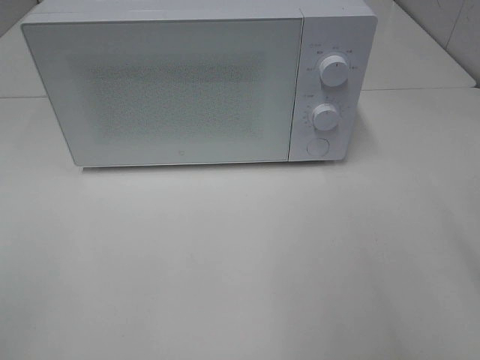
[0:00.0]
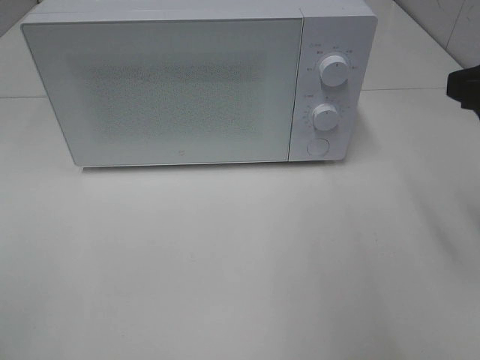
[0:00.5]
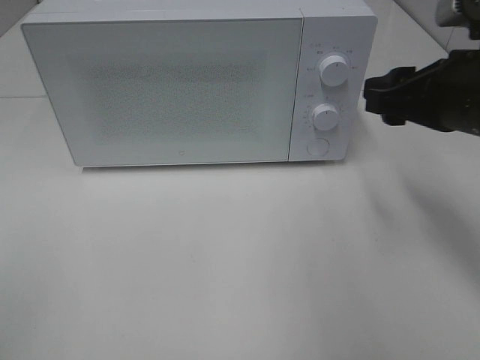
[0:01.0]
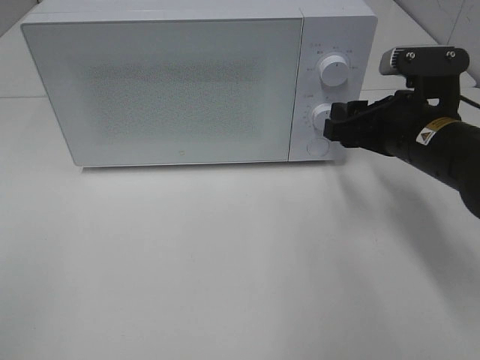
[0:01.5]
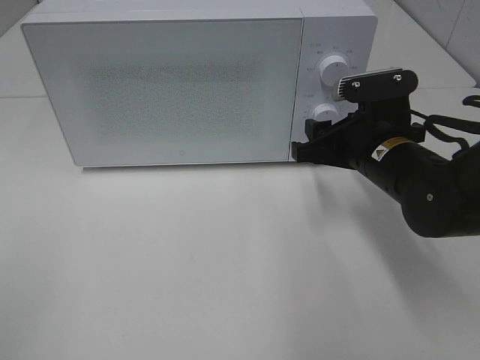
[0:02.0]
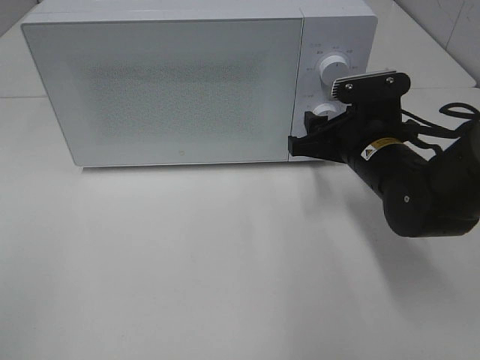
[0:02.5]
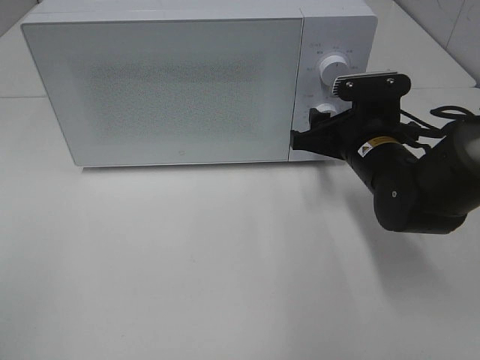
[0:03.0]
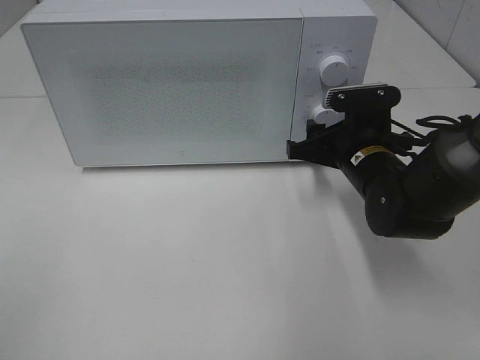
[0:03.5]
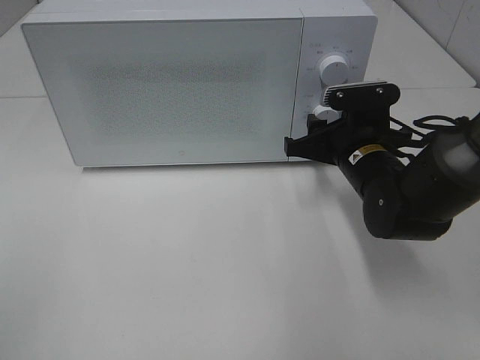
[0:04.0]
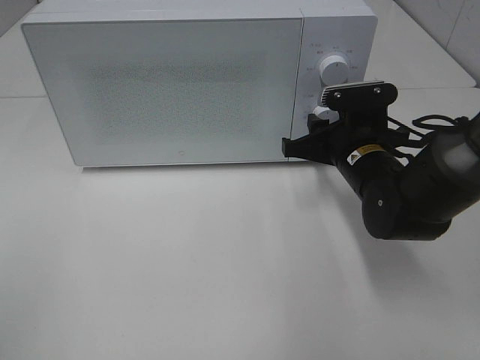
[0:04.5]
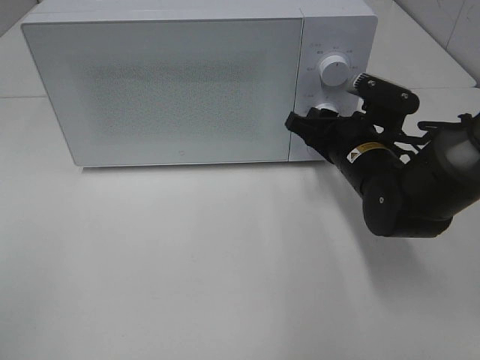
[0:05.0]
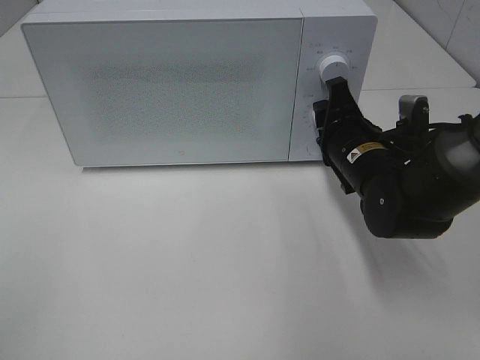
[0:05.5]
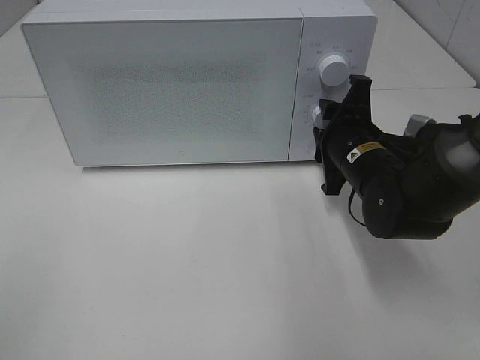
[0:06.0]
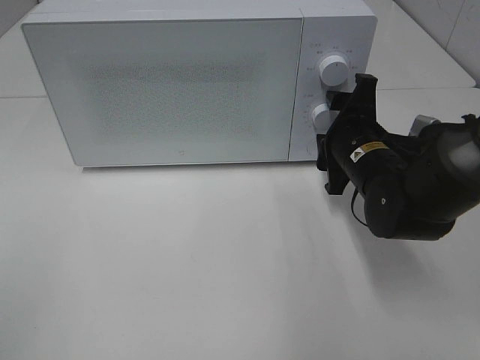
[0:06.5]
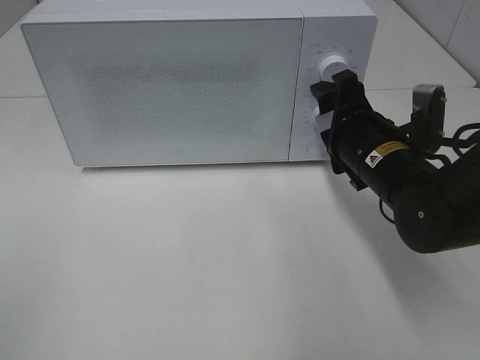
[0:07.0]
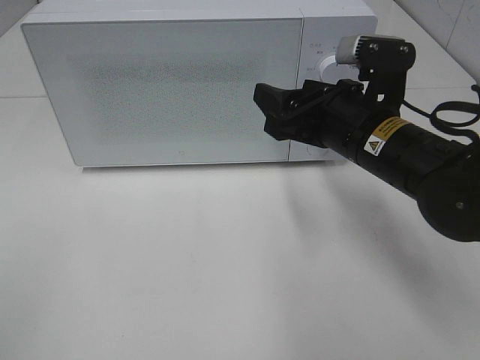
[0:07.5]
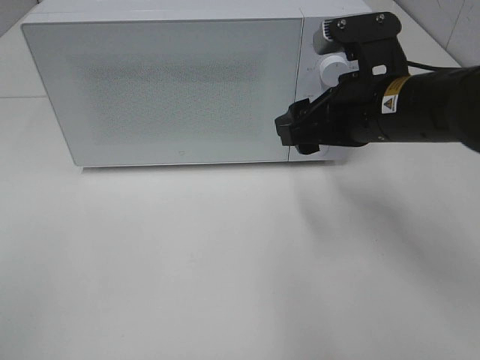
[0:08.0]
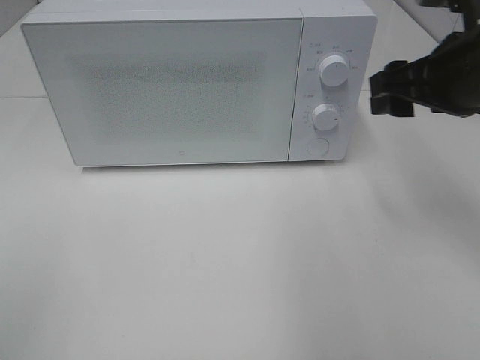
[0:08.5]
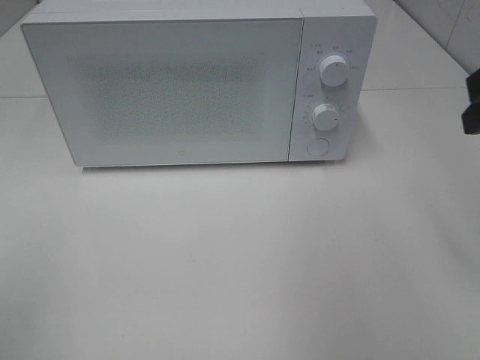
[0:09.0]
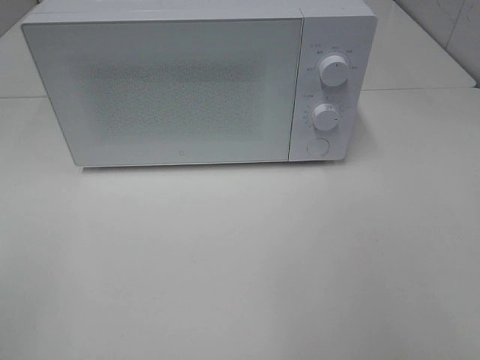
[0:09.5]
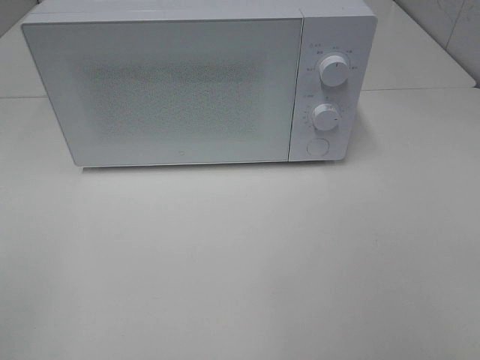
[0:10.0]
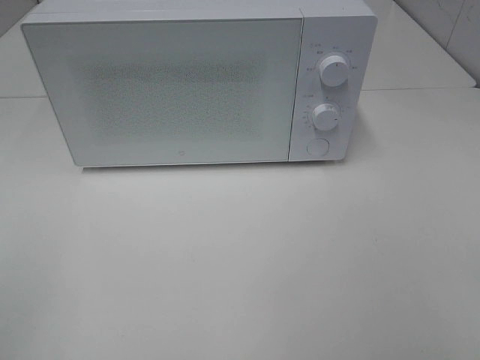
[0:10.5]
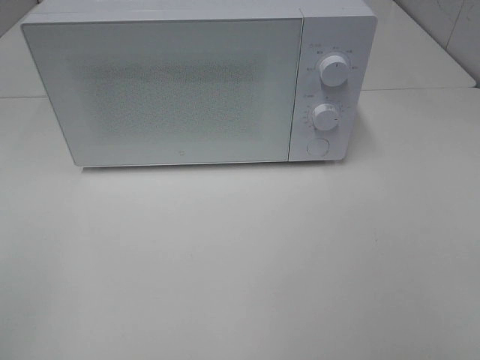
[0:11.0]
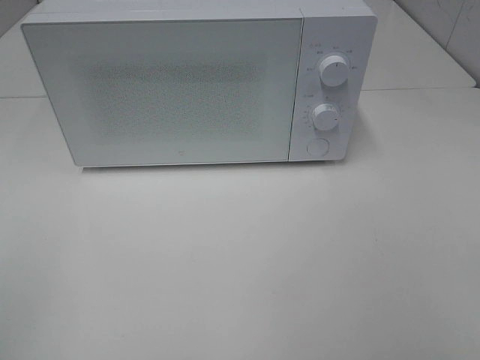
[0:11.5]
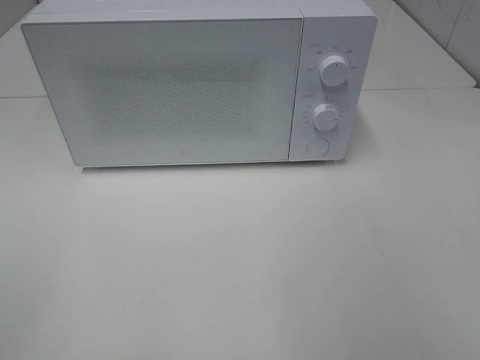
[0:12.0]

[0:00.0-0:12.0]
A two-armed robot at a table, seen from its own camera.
Task of the whole recording: Heat the burger.
0:00.0 to 0:12.0: Both grippers stay about where they are.

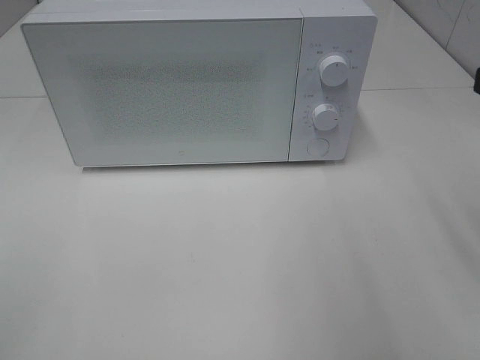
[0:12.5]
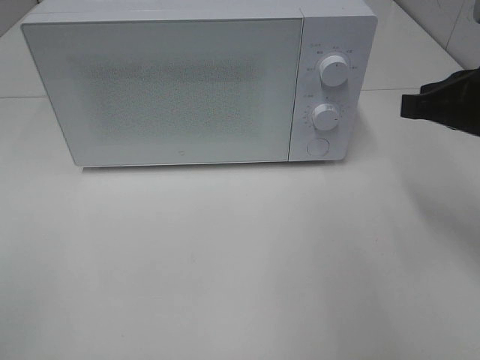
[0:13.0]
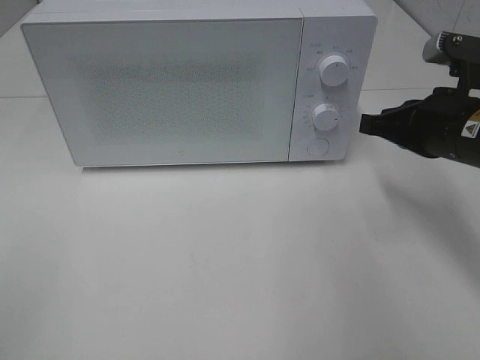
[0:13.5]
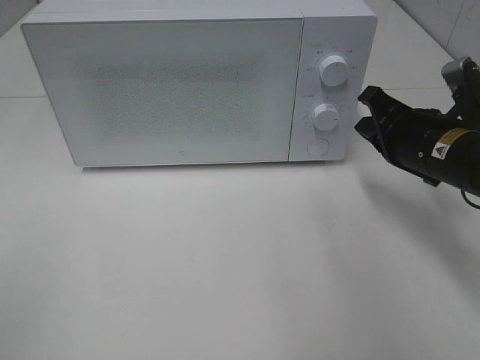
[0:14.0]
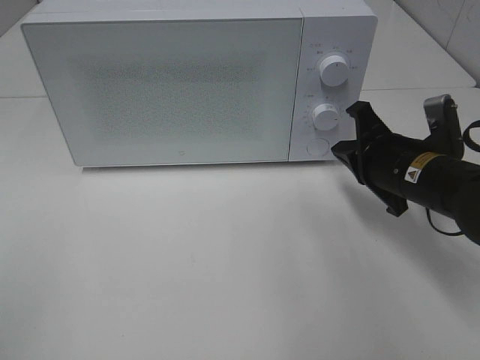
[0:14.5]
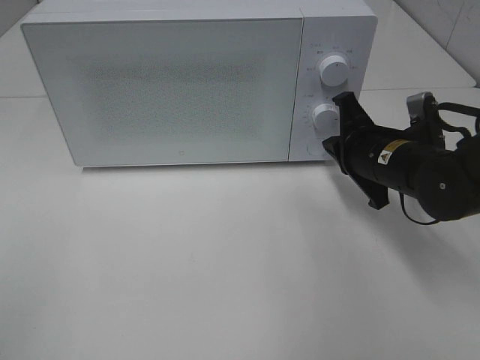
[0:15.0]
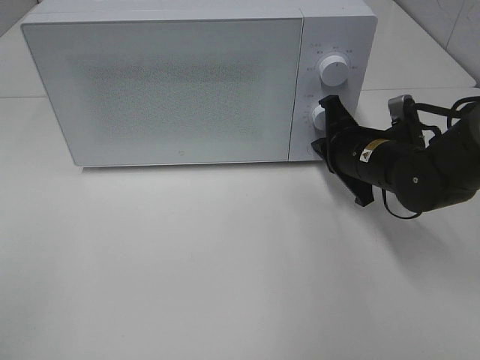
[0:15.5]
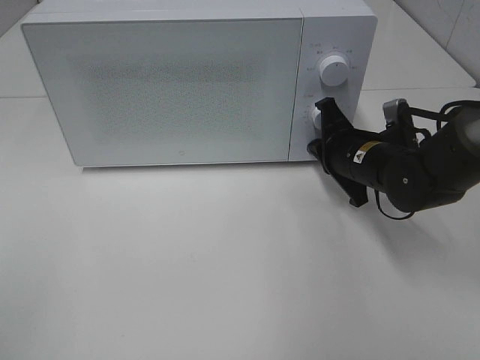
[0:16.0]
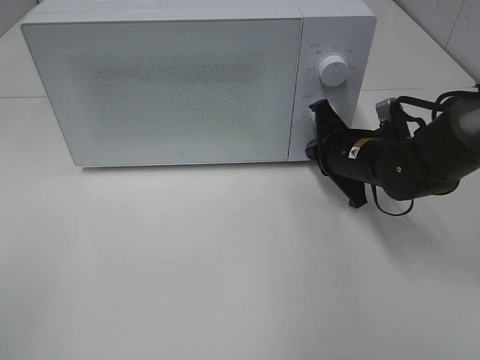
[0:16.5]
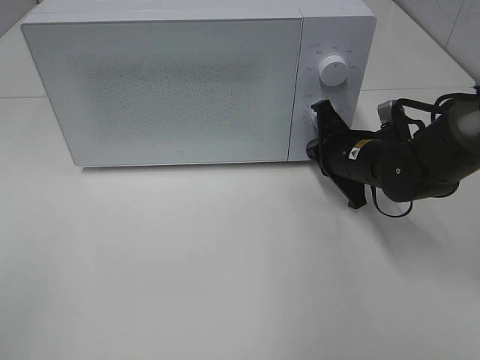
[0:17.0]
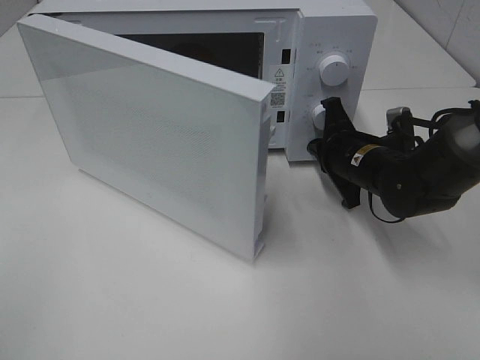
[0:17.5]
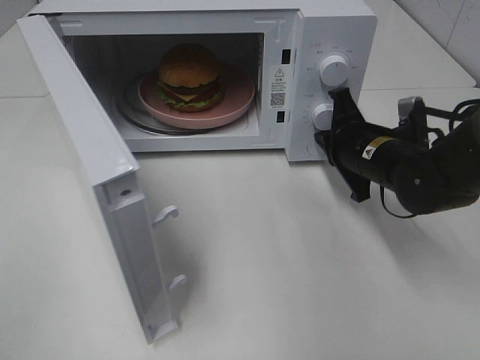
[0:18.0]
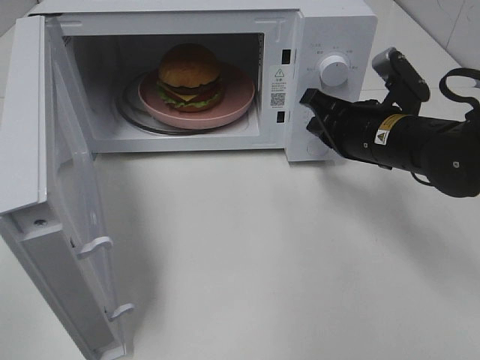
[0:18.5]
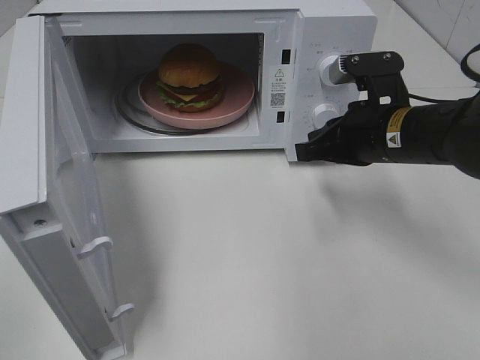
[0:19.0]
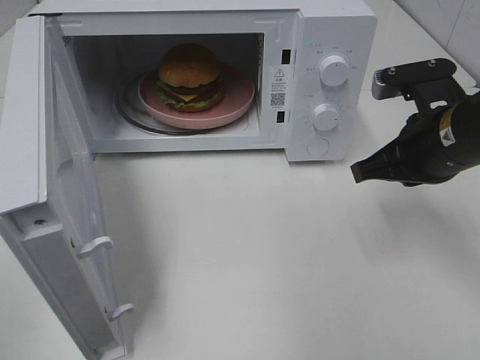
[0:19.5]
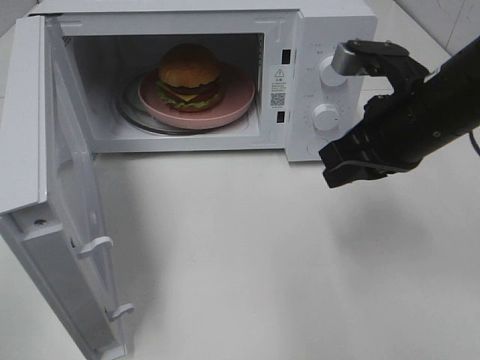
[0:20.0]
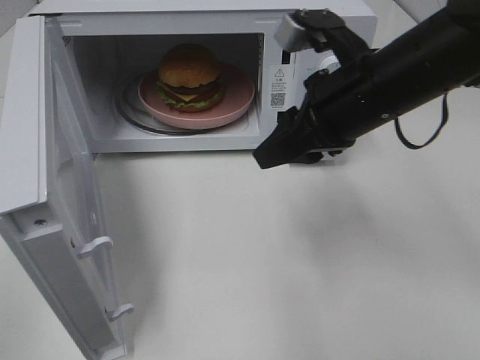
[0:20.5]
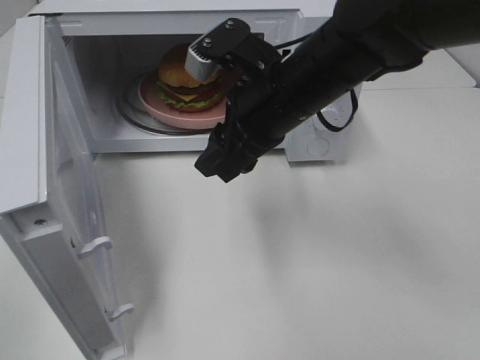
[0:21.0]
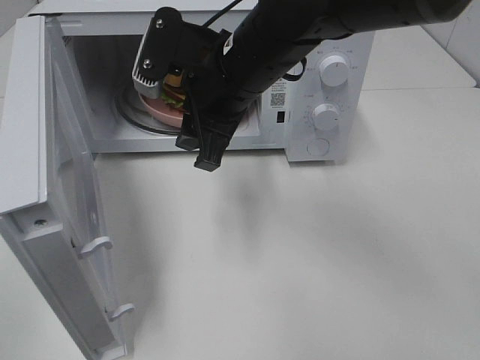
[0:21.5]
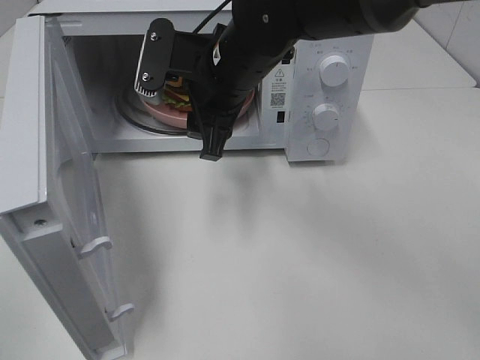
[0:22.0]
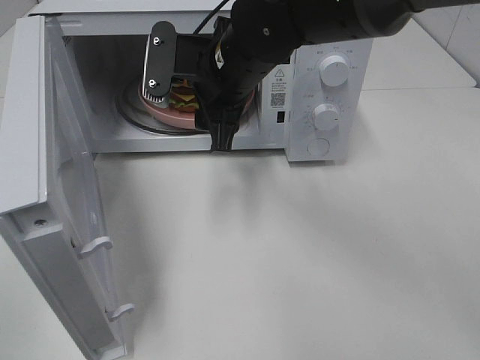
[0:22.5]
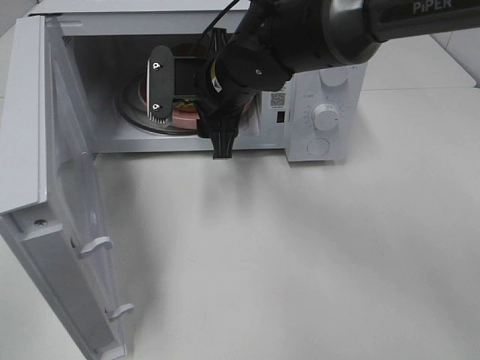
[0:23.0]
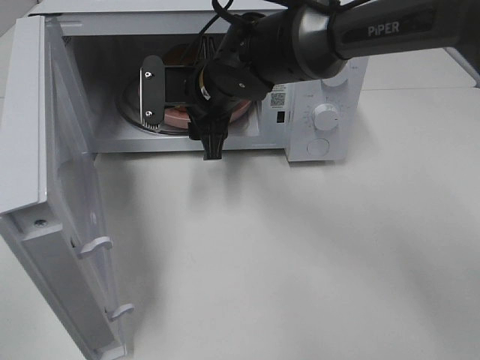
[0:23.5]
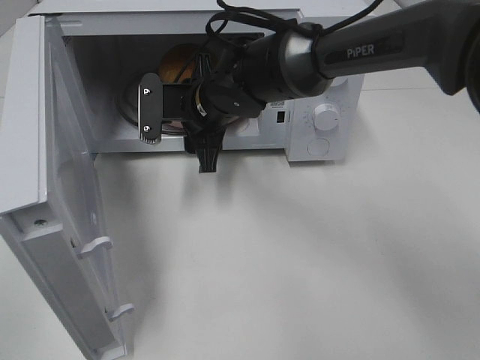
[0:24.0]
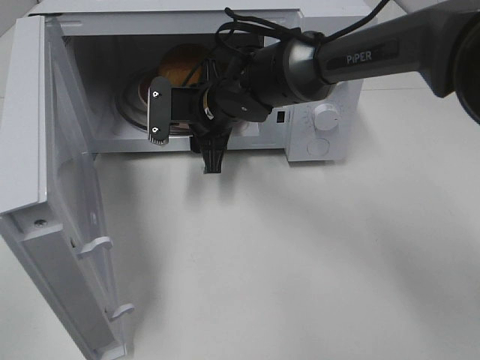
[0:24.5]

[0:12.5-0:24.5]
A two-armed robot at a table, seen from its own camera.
Task of the whole recording: Heat the burger.
Step, 0:12.5 to 0:18.0: Right hand: press the switch.
0:12.5 to 0:16.5: The two grippers keep their place.
0:18.5 to 0:20.5: Neither gripper changes place.
0:22.5 to 0:24.5: Neither gripper changes place.

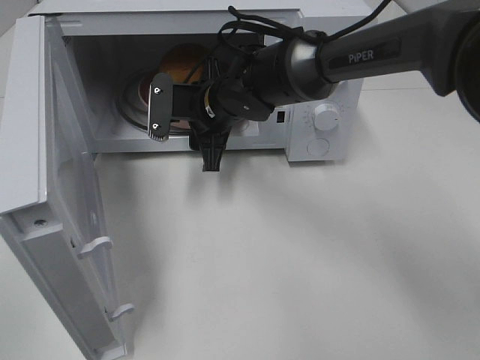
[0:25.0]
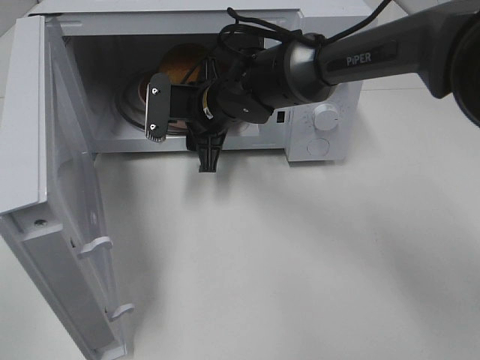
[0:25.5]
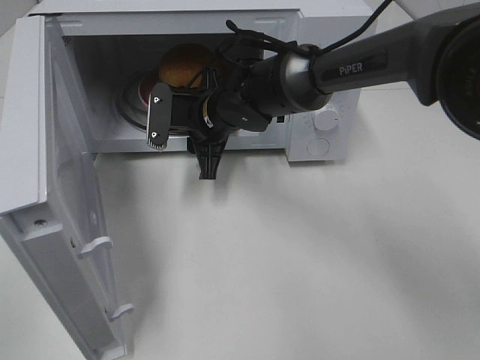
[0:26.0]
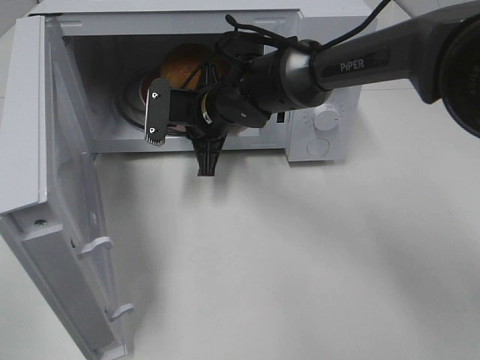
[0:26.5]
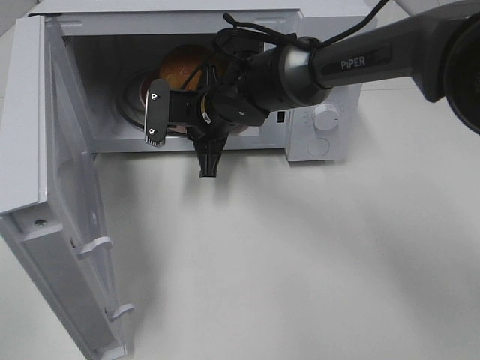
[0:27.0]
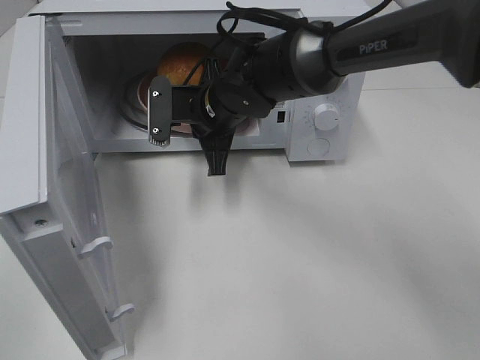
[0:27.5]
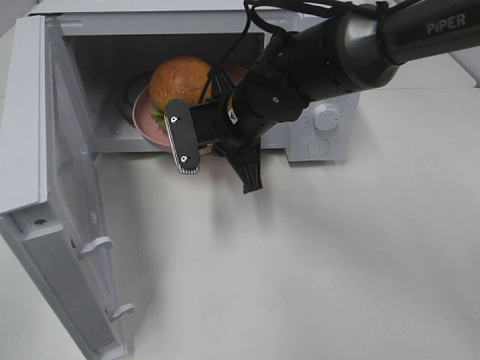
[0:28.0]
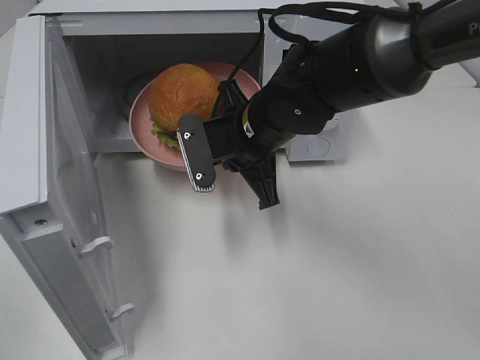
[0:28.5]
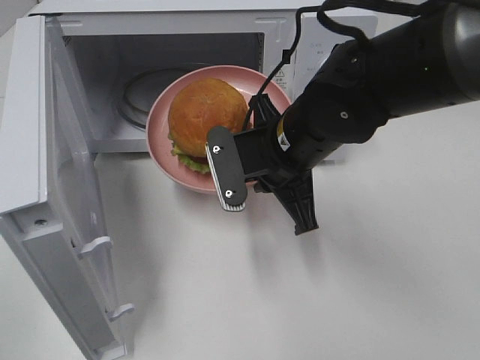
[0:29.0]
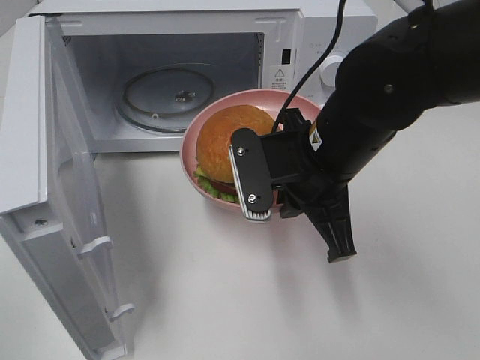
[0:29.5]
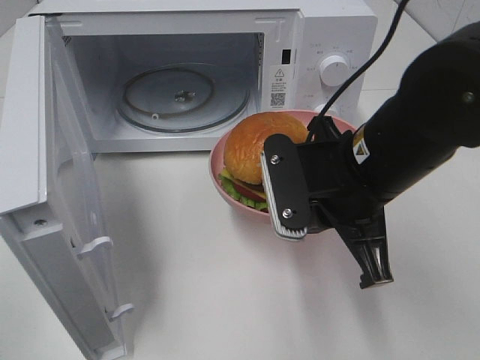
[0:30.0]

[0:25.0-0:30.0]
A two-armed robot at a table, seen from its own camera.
Task of the whole recording: Heat the burger.
0:25.0 to 0:27.5: Both grippers stay put.
